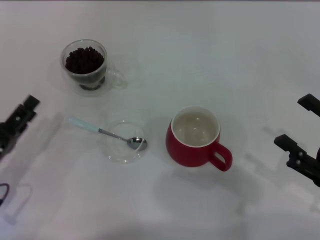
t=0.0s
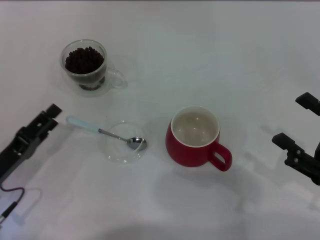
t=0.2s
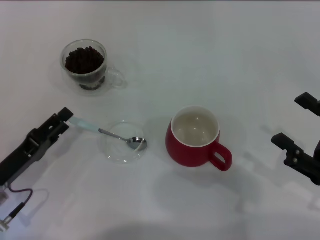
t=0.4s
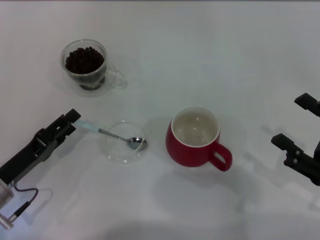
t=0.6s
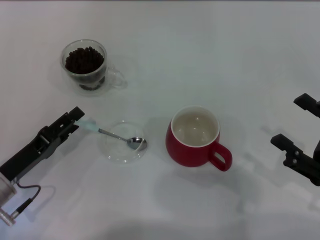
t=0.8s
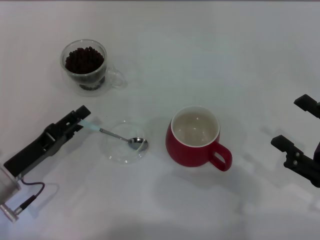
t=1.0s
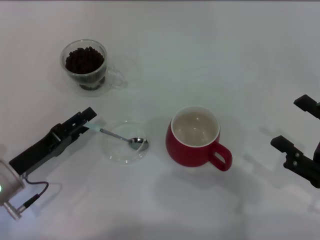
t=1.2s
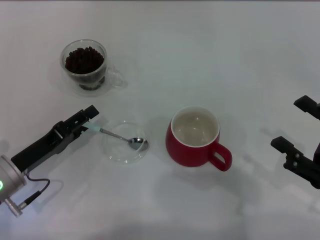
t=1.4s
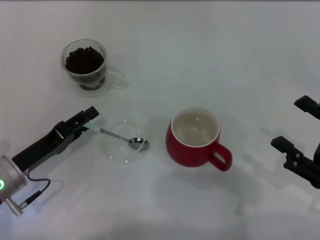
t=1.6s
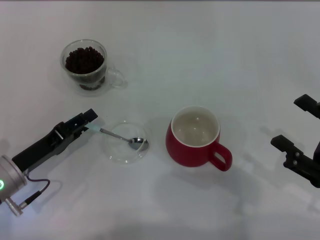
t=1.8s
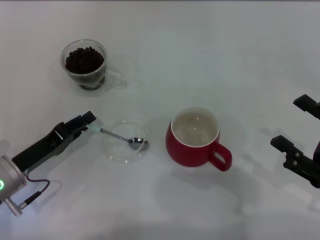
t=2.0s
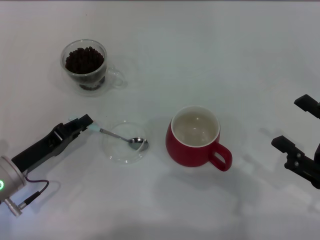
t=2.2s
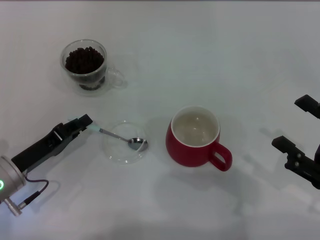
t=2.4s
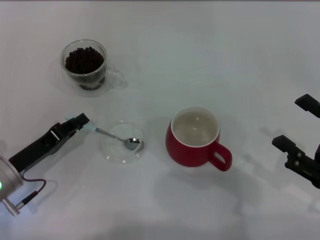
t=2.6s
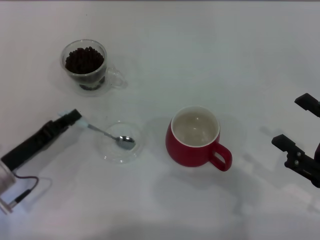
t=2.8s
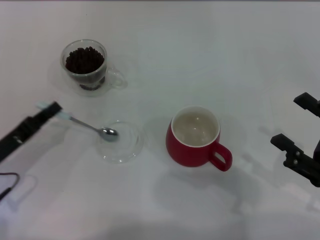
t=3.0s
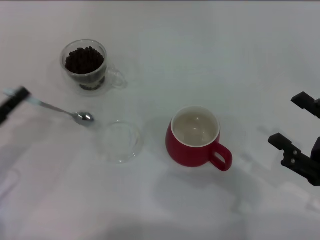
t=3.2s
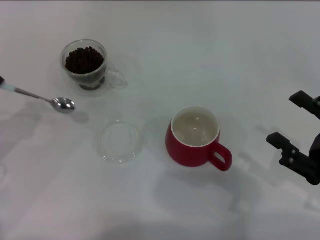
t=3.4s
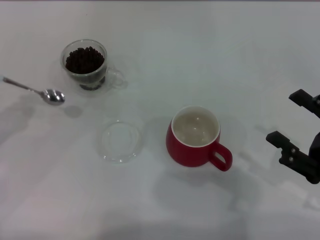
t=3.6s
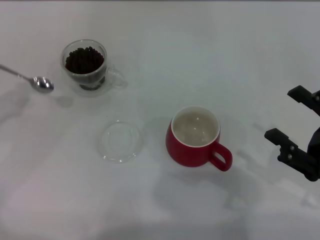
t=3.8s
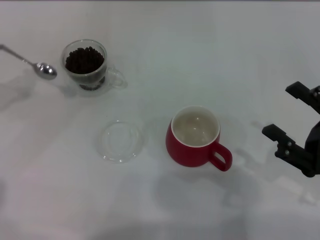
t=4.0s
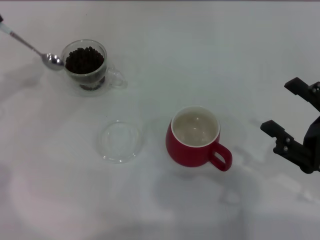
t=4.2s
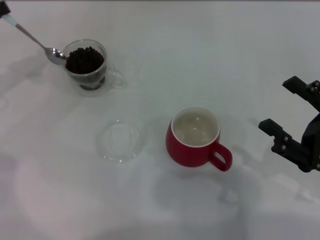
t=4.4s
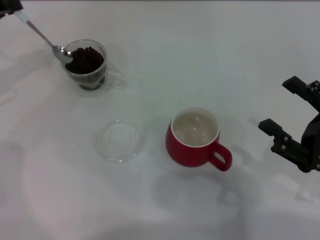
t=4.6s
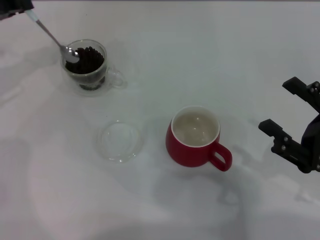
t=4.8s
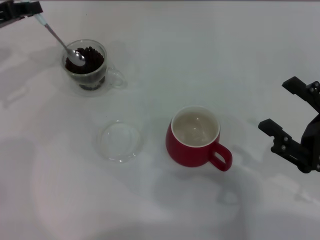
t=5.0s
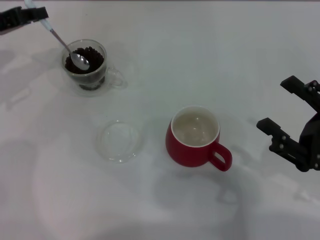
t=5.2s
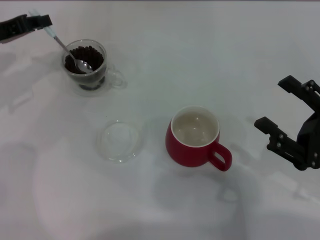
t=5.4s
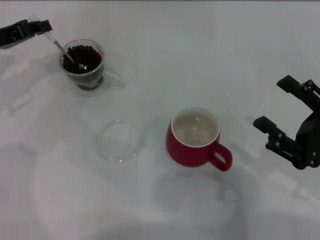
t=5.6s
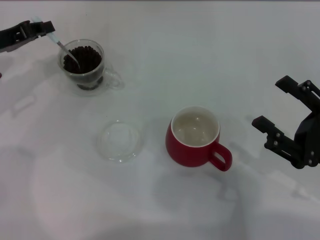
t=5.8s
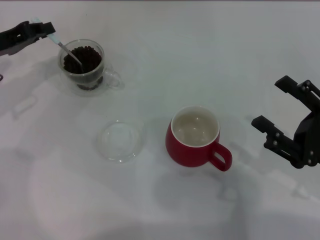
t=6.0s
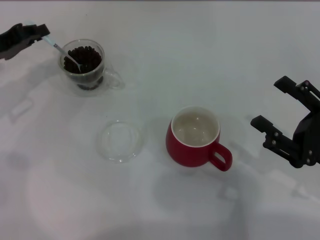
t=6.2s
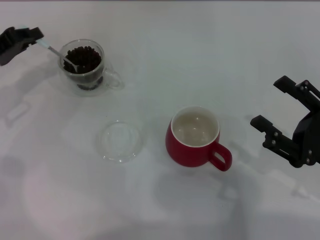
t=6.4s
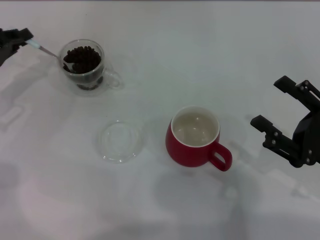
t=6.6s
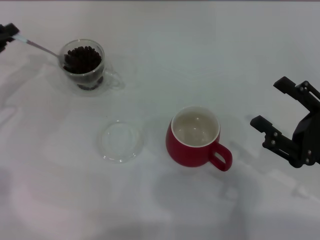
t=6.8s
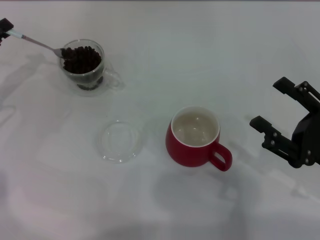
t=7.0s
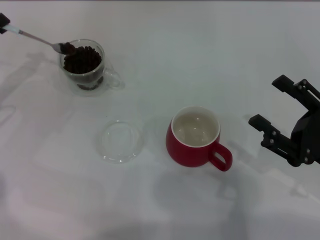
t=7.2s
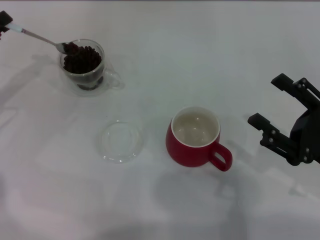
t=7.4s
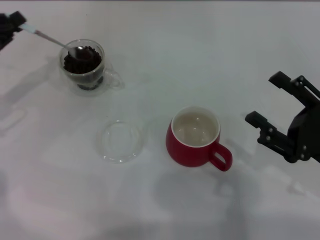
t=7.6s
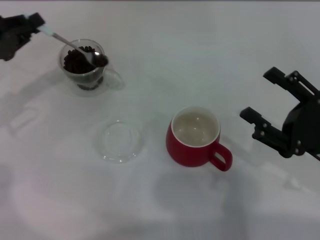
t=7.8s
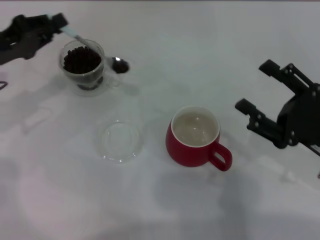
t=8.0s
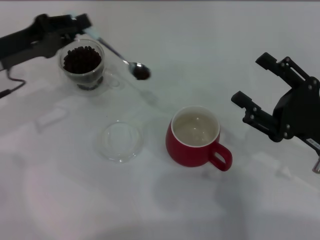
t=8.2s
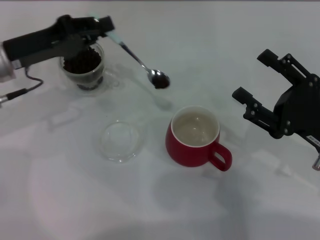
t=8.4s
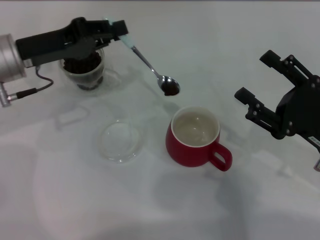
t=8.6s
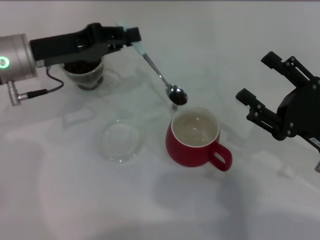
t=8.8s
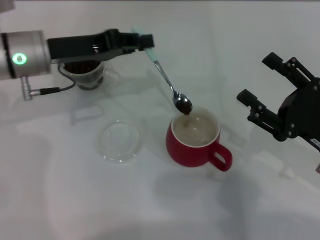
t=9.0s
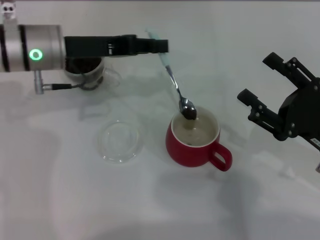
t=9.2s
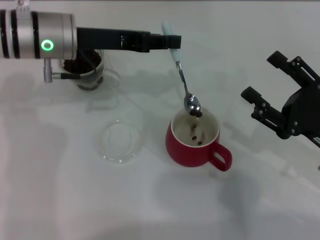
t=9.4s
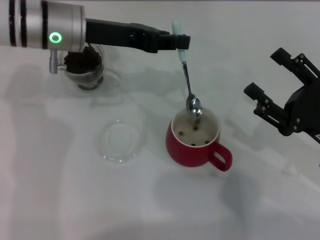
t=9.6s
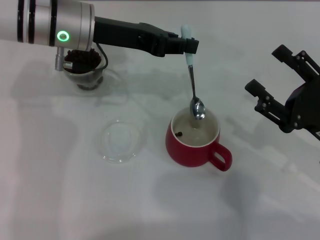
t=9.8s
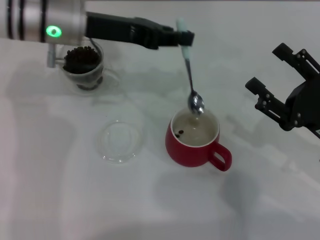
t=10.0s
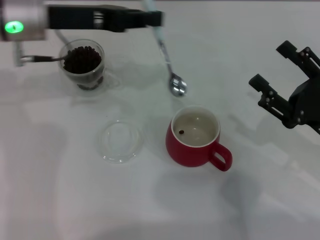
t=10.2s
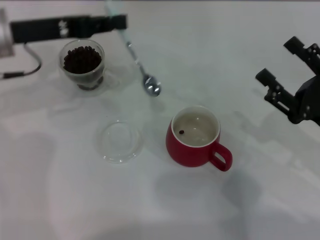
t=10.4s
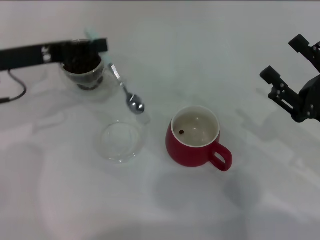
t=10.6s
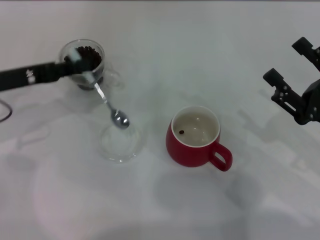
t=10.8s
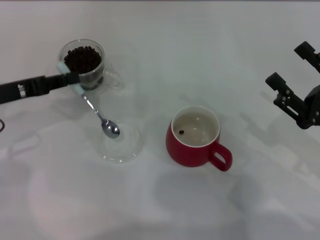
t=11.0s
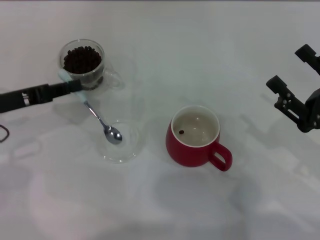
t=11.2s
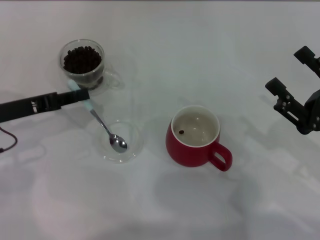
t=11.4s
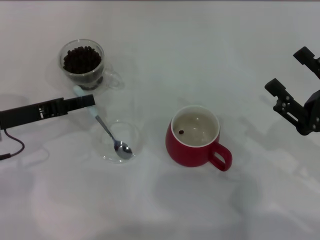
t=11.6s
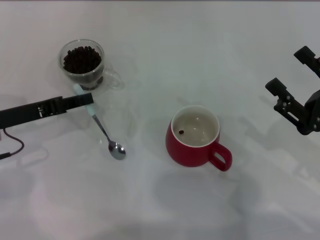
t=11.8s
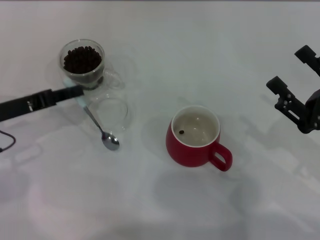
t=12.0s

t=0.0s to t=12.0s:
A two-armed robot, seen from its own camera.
Task of the whole recording: Use a blue spoon to take out the coffee beans from the glass and pour them into the red cup.
t=0.0s to t=1.6s: The left gripper shifts by about 5 cm.
t=1.6s to t=3.0s: The left gripper closes up.
t=3.0s to t=4.4s: The left gripper travels forward, upward and to the left by approximately 20 cm.
t=4.4s to t=6.0s: The left gripper travels to the right by about 5 cm.
t=6.0s to t=7.6s: The left gripper ends up some 5 cm from where it was.
t=7.6s to t=9.0s: The left gripper heads to the right, covering about 15 cm.
t=10.4s to t=12.0s: The left gripper is displaced downward, backward and to the left by about 10 cm.

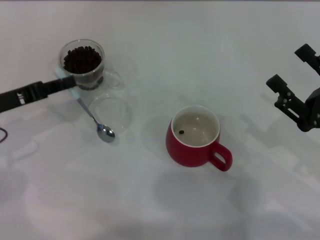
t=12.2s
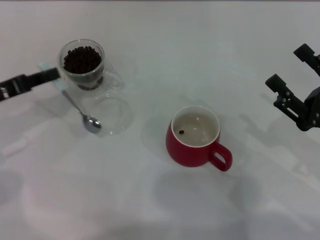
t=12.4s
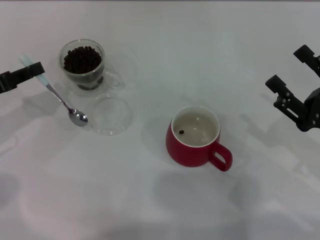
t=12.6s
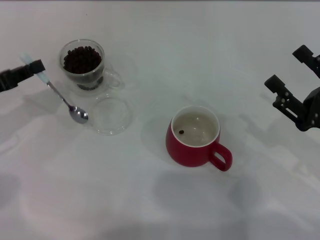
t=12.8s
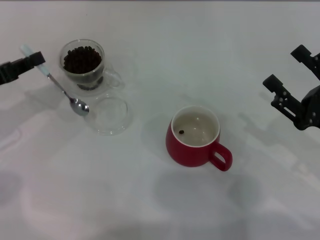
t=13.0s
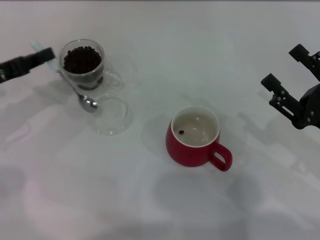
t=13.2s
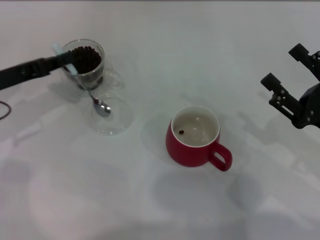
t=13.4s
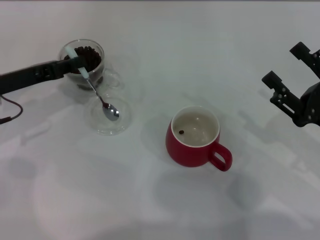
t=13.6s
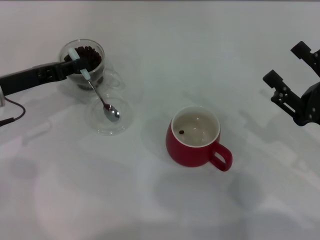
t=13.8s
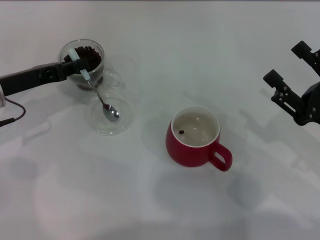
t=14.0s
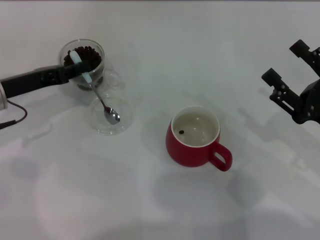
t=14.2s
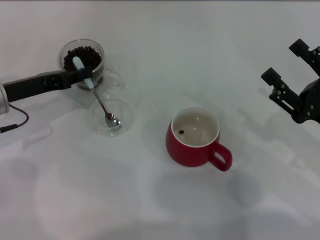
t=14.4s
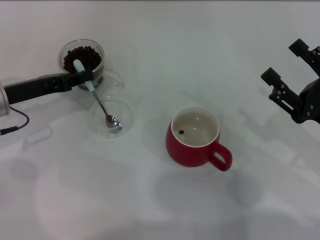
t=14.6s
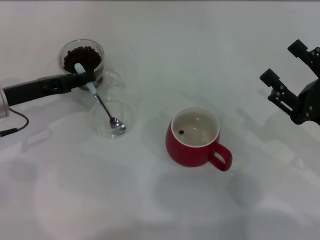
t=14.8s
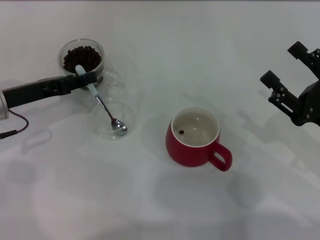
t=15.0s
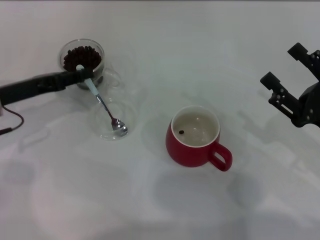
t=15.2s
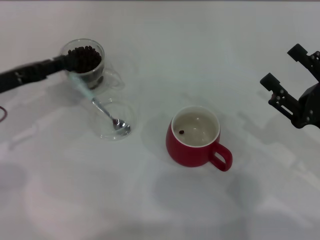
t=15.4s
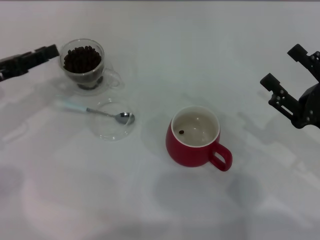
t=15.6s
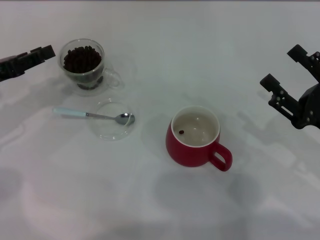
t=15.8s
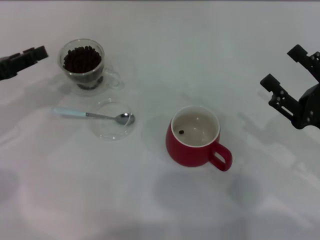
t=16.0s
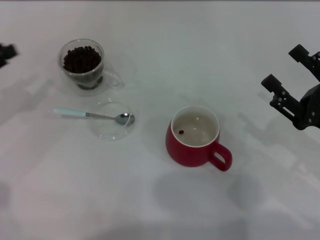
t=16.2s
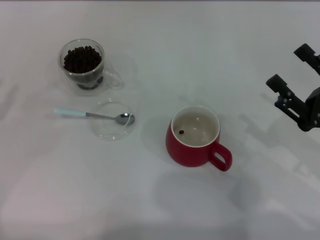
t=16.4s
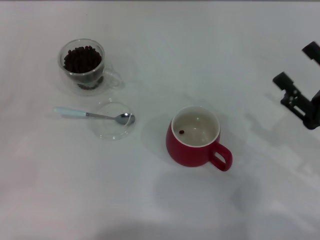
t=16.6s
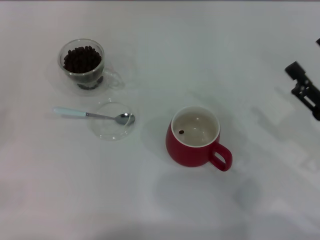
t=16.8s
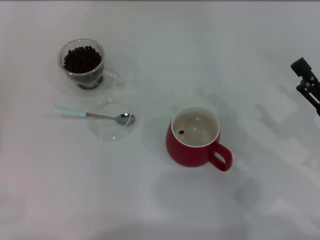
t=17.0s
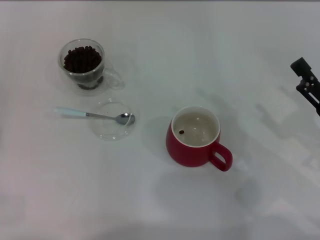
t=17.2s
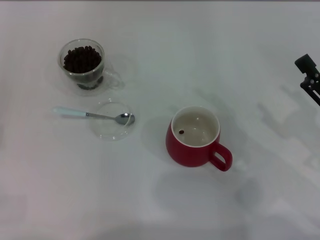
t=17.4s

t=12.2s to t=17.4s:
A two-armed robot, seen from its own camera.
Task of the whole recording: Use a blue spoon to take out the coffee beans from the glass and pour them into the red cup.
t=12.2s to t=14.0s: There are only small adjustments of the grippers.
t=14.0s to t=15.6s: The left gripper changes place by about 5 cm, and opens its fingers.
t=15.6s to t=17.4s: The left gripper shifts approximately 20 cm backward and to the left.

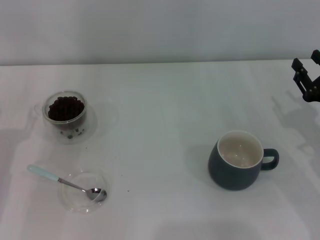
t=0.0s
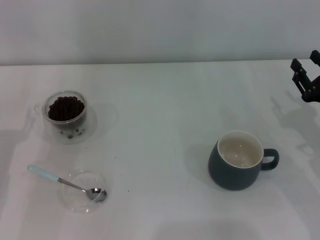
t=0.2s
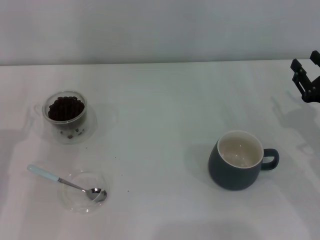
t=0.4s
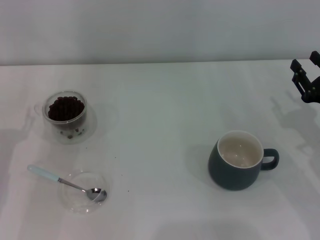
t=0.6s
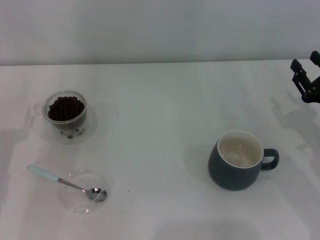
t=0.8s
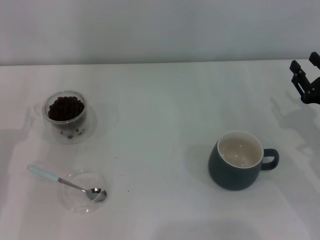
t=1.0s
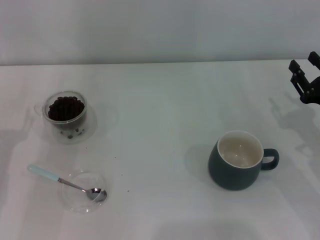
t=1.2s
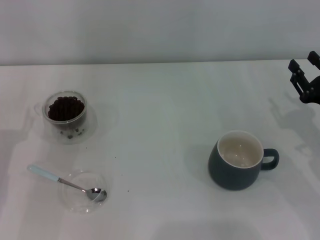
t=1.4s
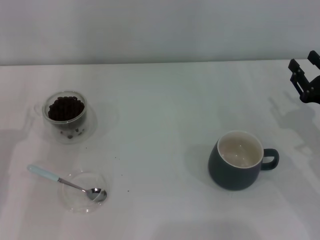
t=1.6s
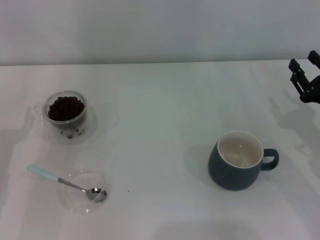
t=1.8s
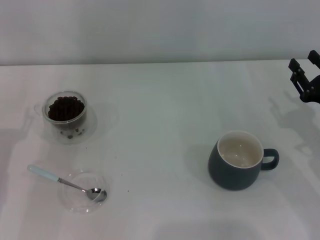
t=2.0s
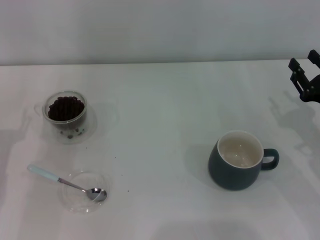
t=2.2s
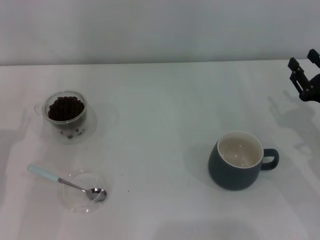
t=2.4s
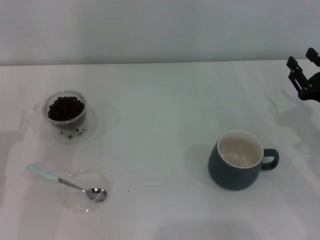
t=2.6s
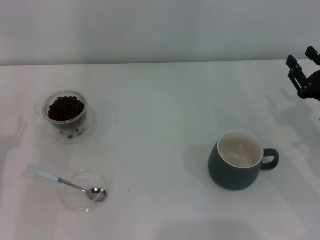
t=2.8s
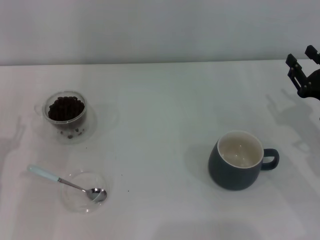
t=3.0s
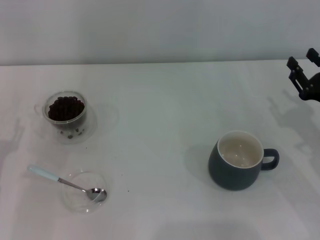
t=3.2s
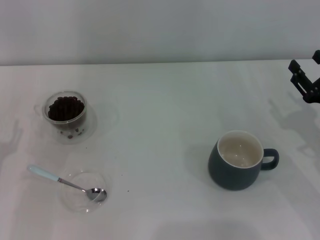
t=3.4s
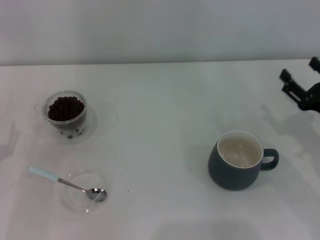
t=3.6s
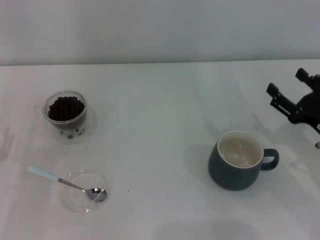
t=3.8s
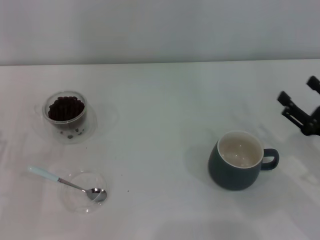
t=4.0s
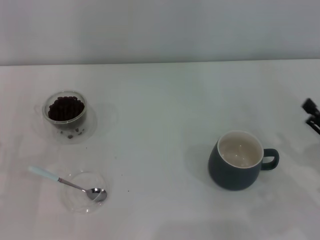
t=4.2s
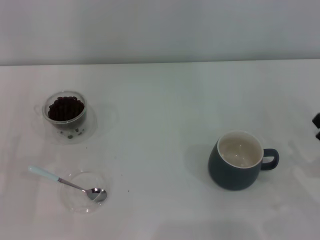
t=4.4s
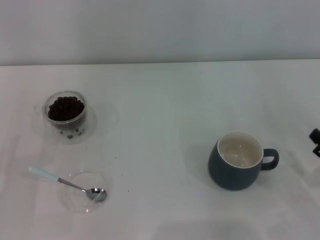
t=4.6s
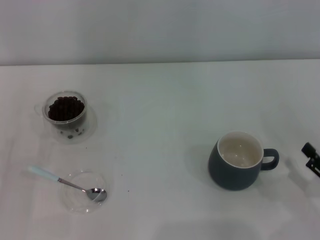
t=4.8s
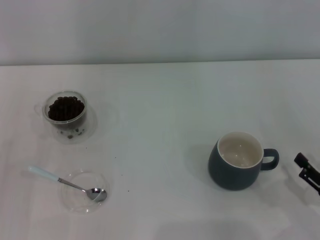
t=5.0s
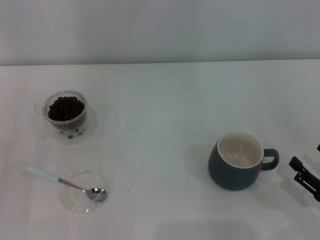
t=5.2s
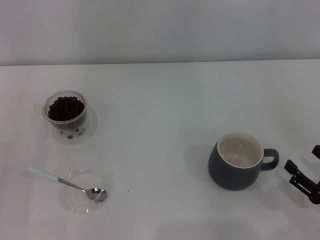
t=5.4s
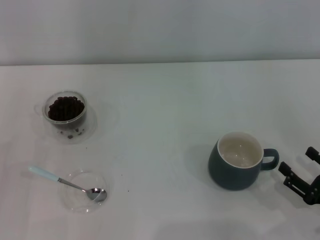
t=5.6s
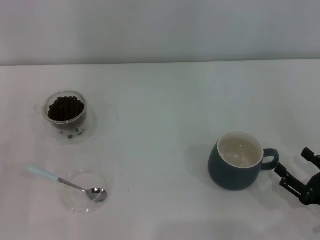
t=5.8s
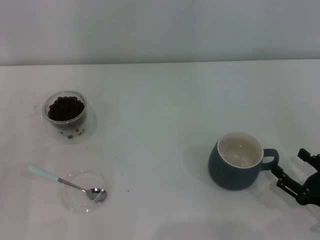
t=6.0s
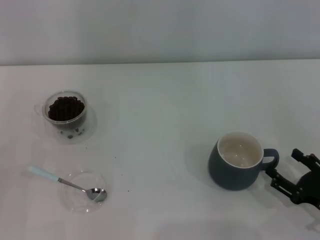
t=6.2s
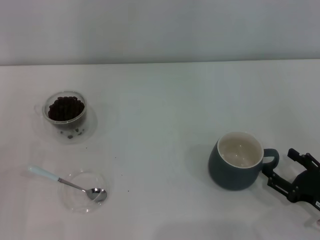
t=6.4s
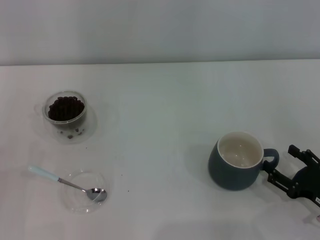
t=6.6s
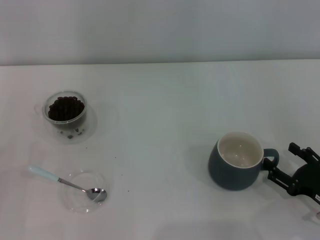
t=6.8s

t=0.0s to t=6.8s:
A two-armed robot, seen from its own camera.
Task of the whole recording: Use a blue spoon to take out the coffee beans from the glass and pour them into the gray cup.
t=0.0s to t=1.4s: The two grippers keep their place.
t=1.4s to t=2.8s: Neither gripper changes place.
t=2.8s to t=4.0s: The right gripper moves backward, approximately 5 cm, and opens up.
t=4.0s to t=5.4s: The right gripper heads backward, covering roughly 10 cm.
t=5.4s to t=6.8s: There are only small adjustments of the grippers.
